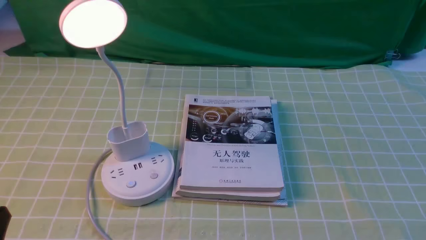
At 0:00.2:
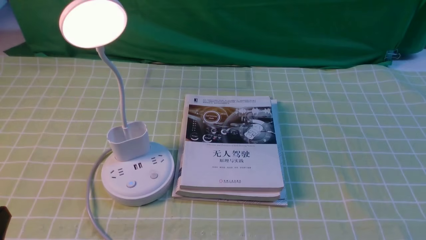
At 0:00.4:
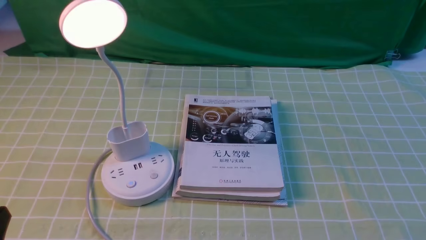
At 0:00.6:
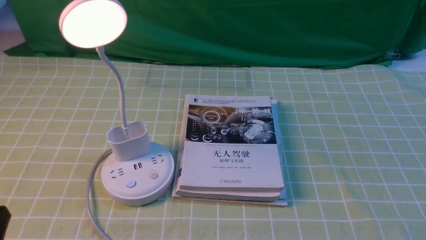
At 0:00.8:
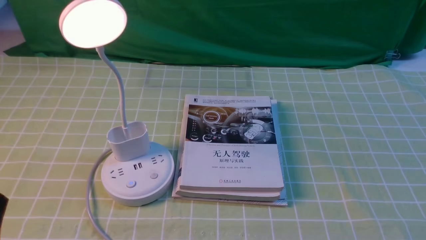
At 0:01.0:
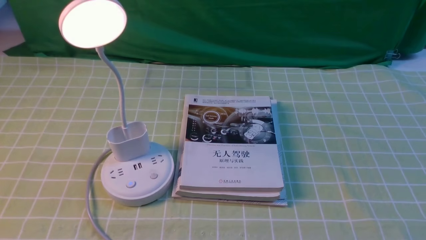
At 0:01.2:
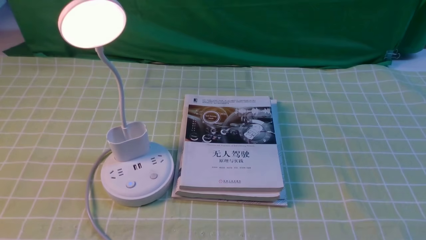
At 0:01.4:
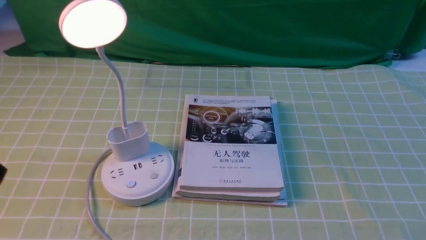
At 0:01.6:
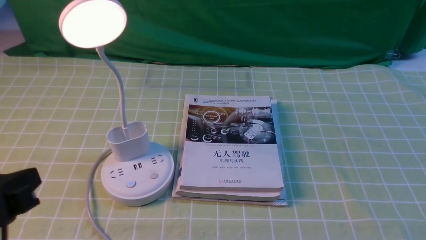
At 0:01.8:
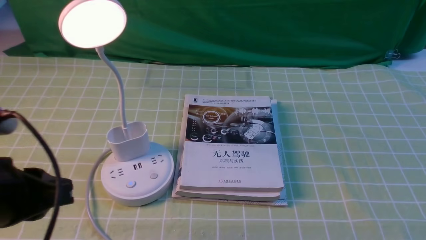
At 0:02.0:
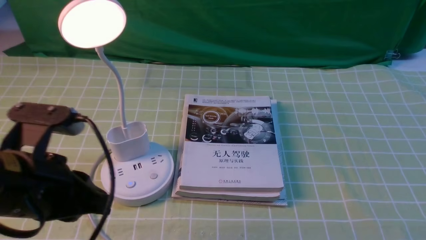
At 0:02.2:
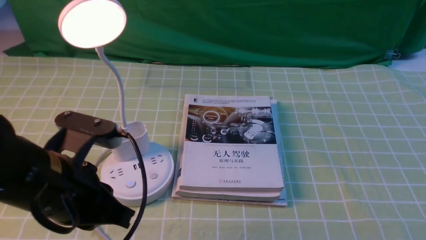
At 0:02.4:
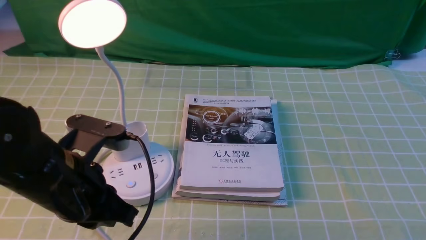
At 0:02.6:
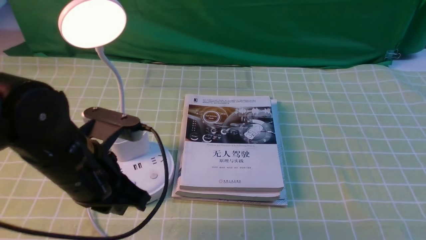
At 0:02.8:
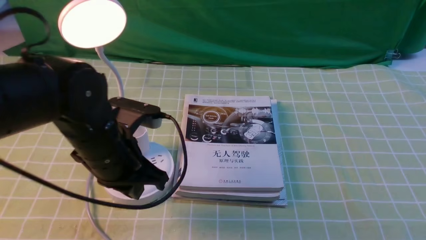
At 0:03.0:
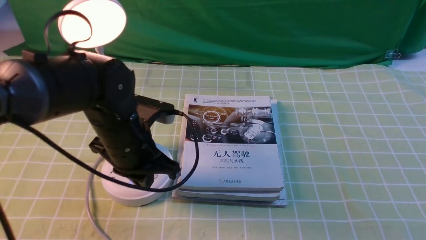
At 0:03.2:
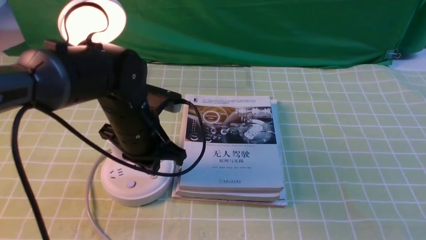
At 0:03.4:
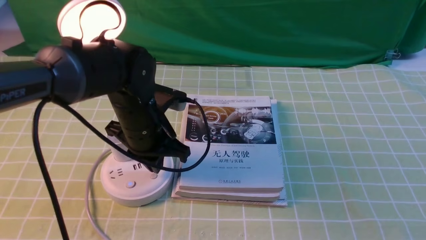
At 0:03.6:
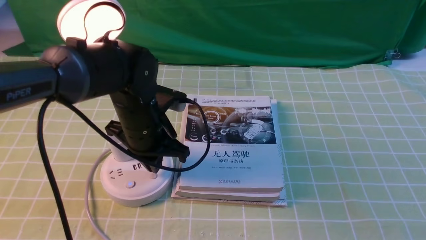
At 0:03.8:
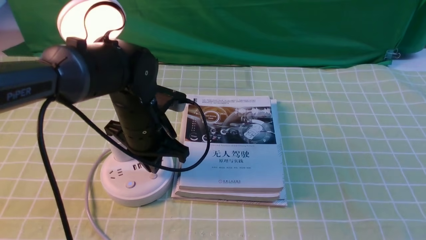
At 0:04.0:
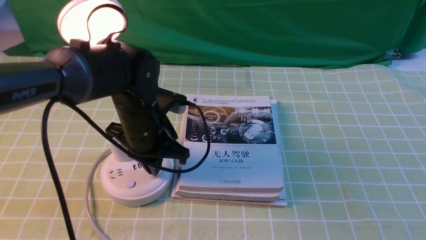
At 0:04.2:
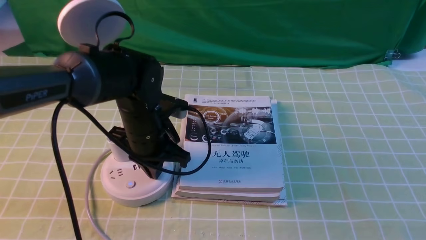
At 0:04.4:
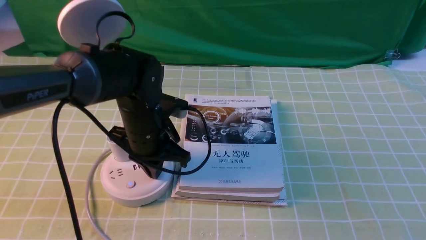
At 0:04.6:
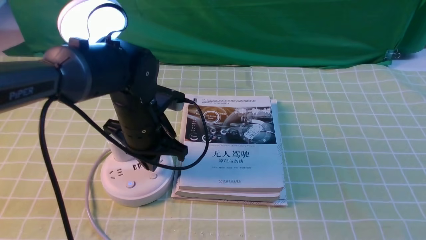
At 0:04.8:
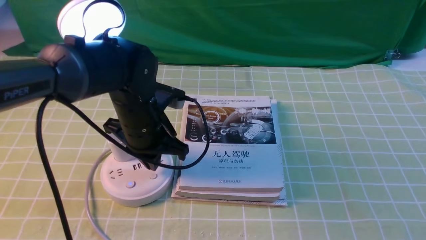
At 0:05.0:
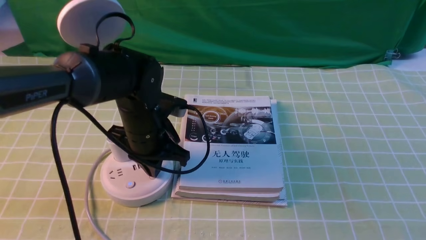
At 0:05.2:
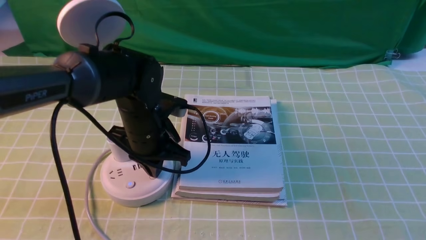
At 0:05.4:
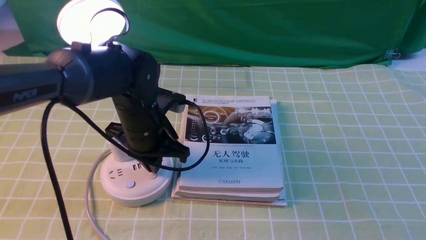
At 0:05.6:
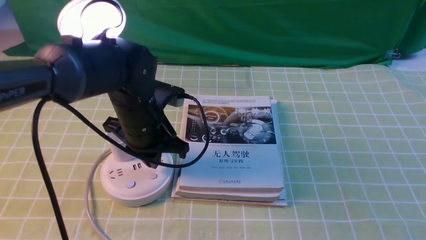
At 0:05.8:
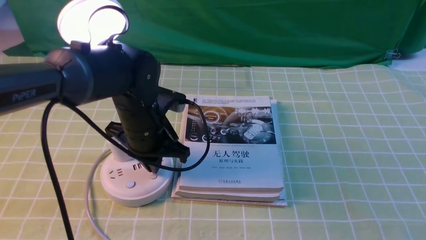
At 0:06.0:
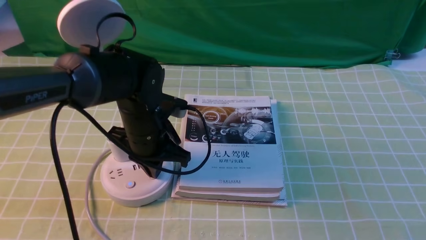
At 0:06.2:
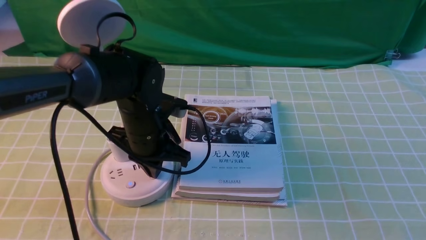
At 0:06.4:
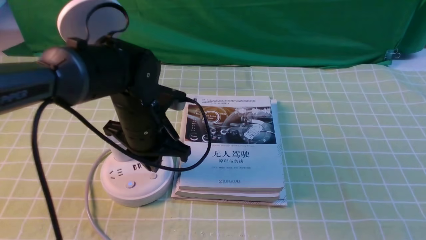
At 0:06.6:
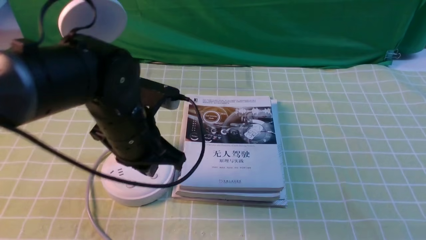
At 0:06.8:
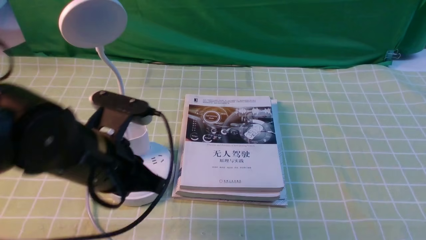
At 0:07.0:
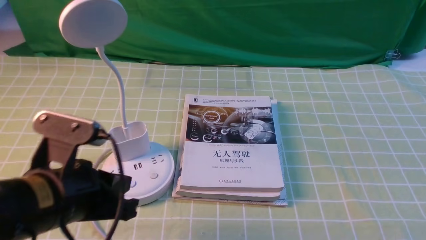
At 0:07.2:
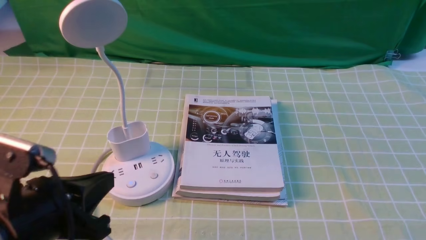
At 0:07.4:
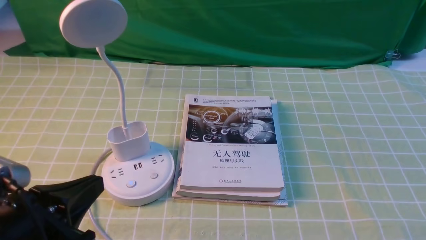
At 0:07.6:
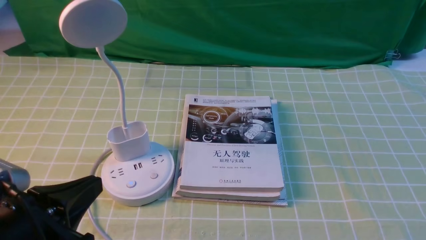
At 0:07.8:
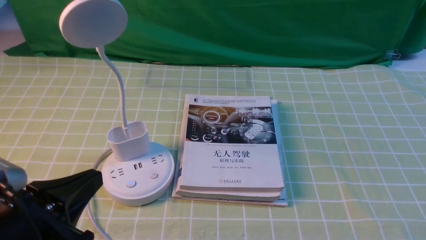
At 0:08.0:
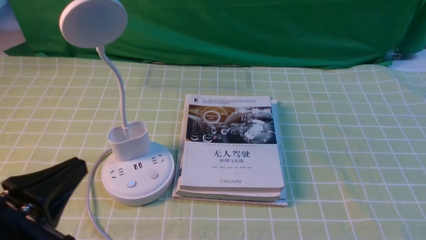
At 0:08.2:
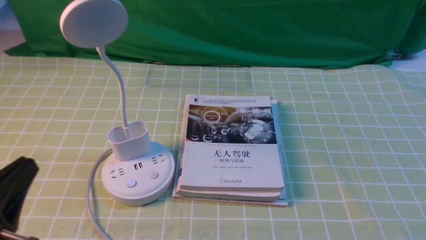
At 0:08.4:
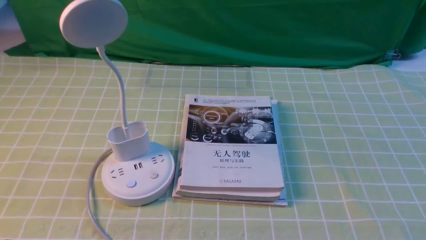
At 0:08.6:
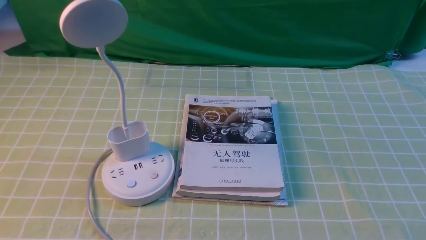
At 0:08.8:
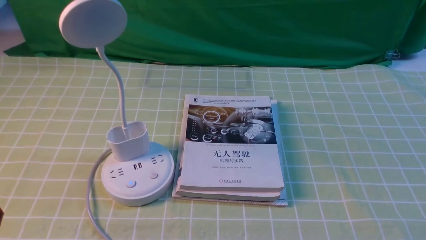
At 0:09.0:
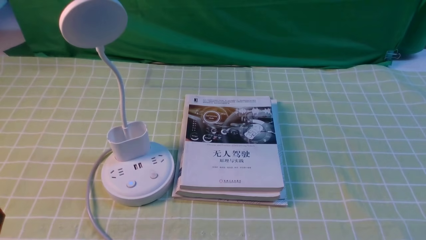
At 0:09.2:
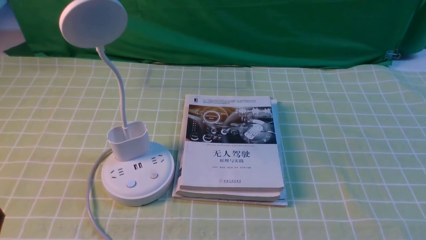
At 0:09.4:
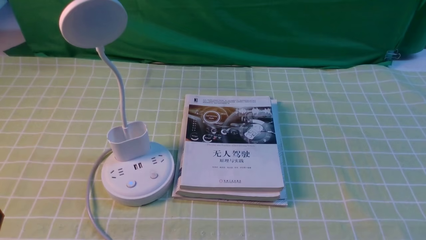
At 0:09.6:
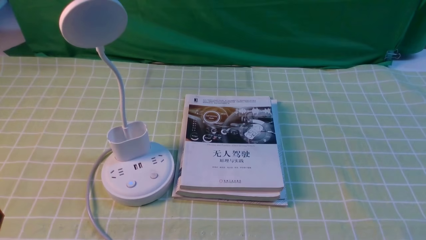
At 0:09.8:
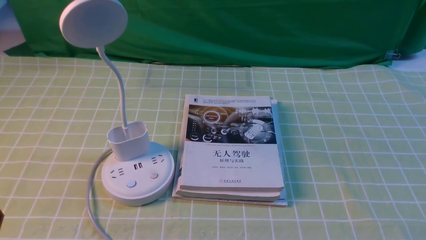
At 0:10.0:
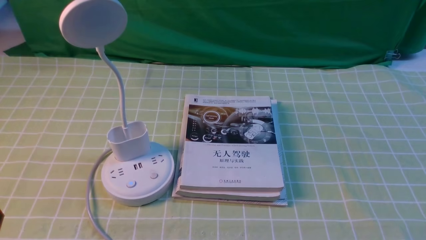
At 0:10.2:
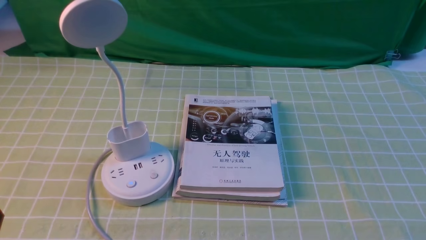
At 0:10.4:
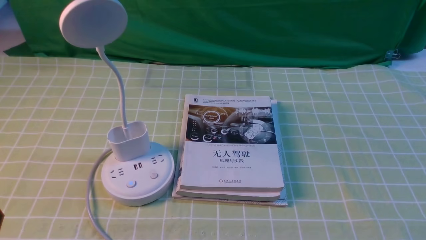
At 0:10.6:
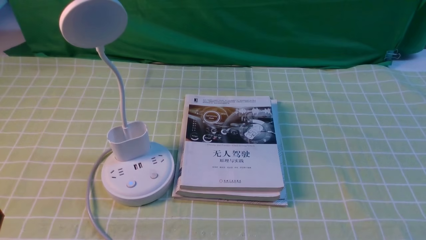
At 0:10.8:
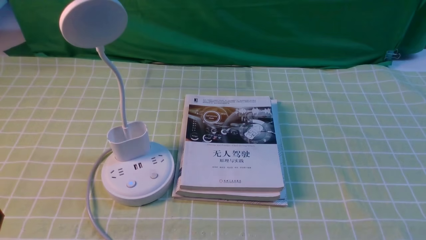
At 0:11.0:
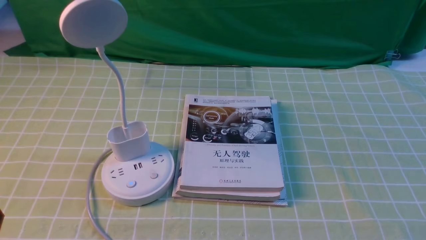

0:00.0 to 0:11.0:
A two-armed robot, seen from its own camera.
Task of the whole recording: turn off the desk lamp on the green coffee tablecloth by hand.
Step, 0:00.0 to 0:06.4: use the left arm to press the button switch on the lamp holder.
0:00.0 to 0:01.6: The left gripper moves upward and forward, some 10 cm.
0:01.6 to 0:03.2: The left gripper heads forward and to the right, covering some 25 cm.
0:03.2 to 0:04.8: There are only small adjustments of the grippers.
0:04.8 to 0:06.2: Both grippers stay put.
0:06.2 to 0:07.8: The left gripper heads backward and to the left, covering approximately 25 cm.
0:07.8 to 0:09.4: The left gripper travels downward and to the left by approximately 10 cm.

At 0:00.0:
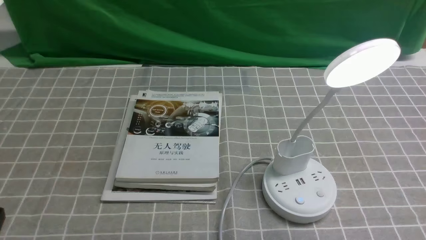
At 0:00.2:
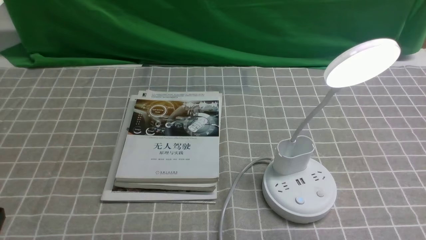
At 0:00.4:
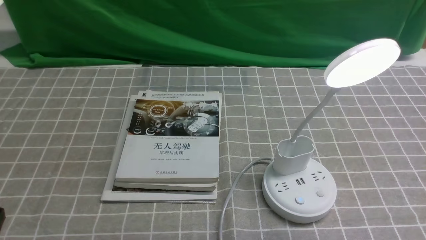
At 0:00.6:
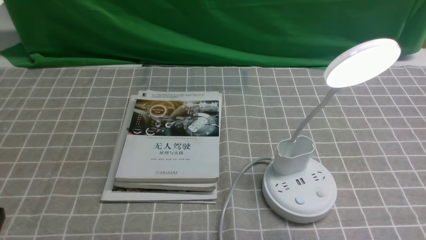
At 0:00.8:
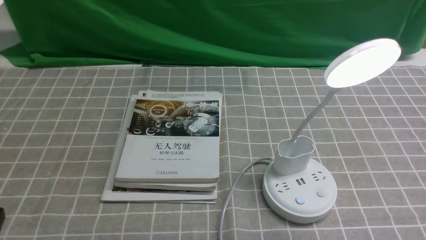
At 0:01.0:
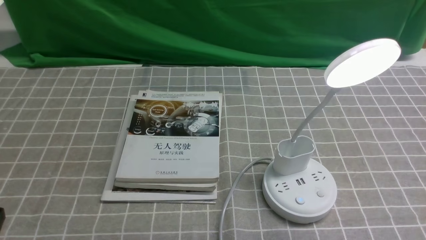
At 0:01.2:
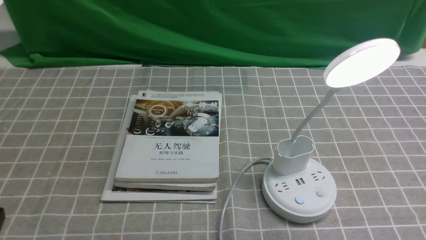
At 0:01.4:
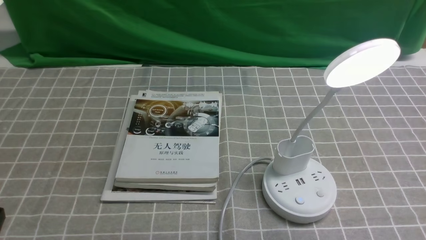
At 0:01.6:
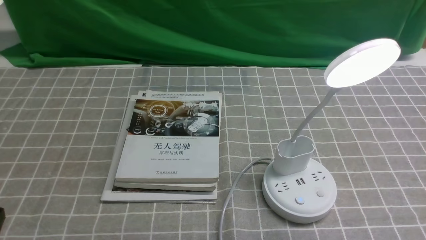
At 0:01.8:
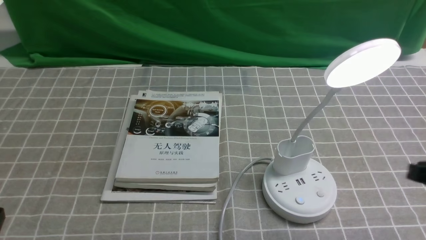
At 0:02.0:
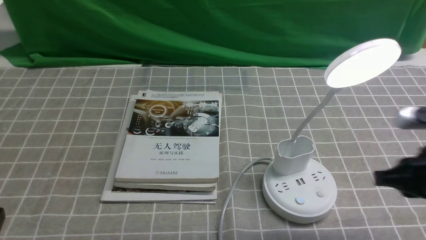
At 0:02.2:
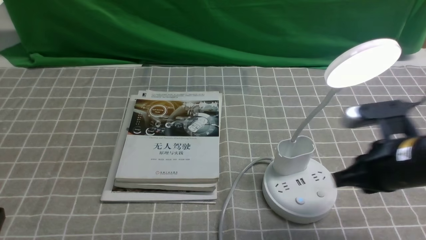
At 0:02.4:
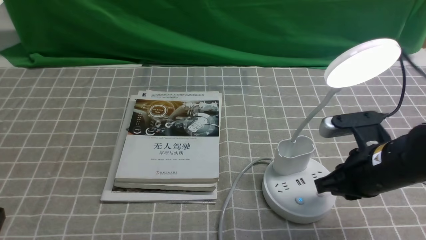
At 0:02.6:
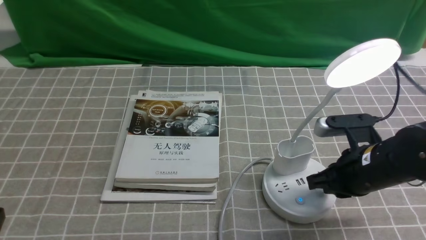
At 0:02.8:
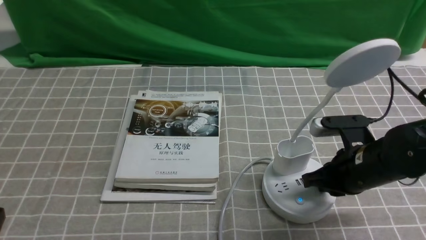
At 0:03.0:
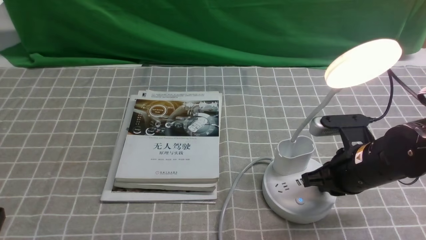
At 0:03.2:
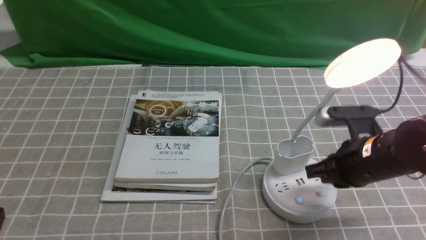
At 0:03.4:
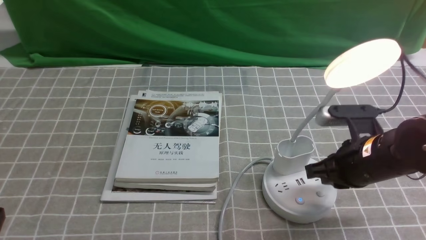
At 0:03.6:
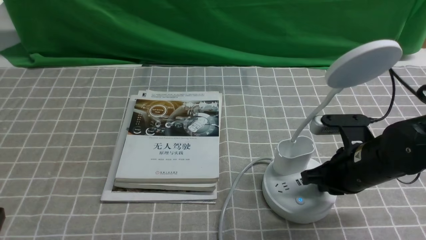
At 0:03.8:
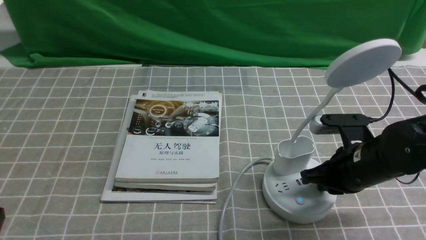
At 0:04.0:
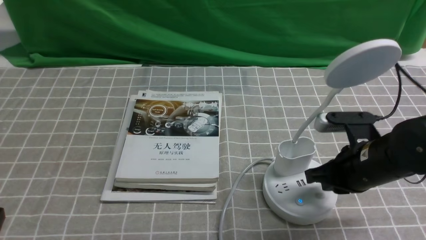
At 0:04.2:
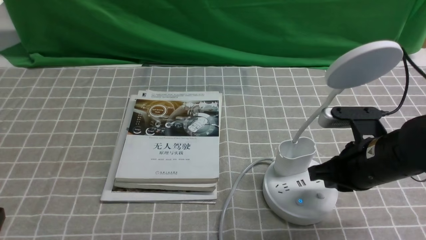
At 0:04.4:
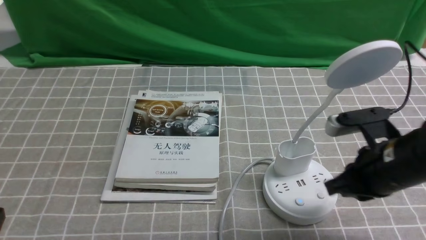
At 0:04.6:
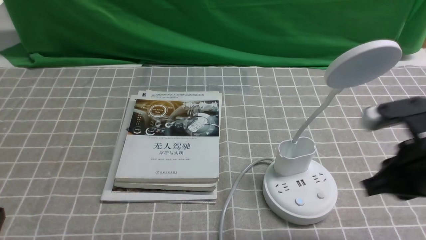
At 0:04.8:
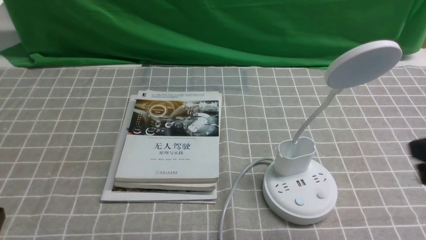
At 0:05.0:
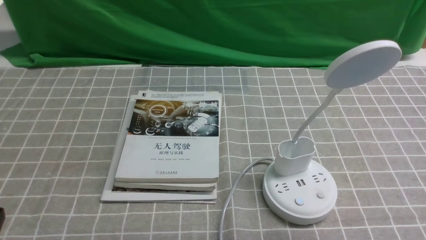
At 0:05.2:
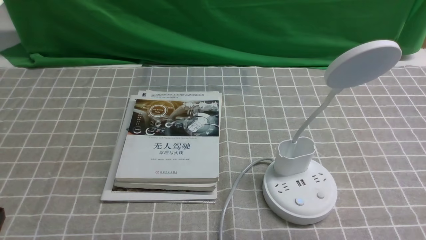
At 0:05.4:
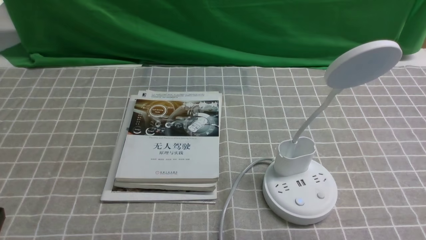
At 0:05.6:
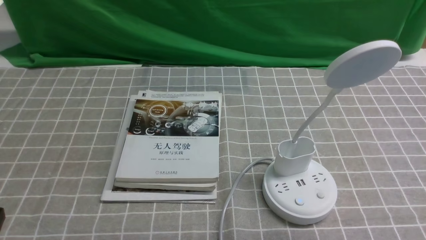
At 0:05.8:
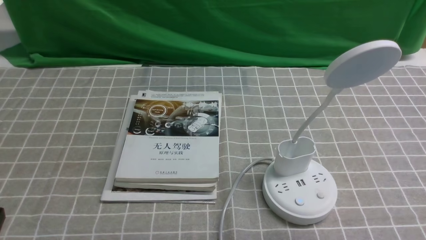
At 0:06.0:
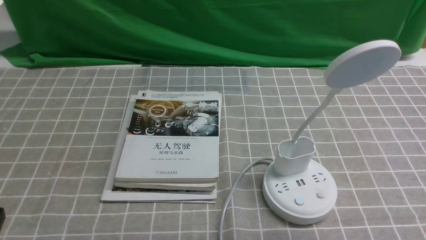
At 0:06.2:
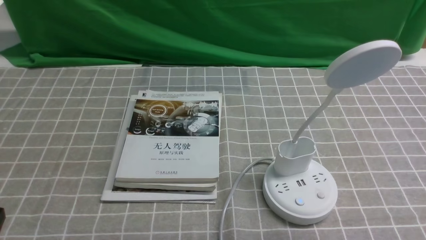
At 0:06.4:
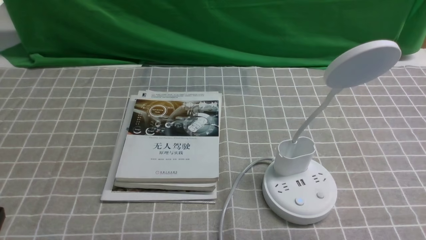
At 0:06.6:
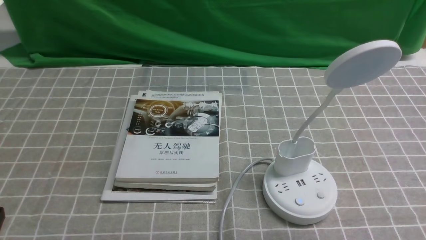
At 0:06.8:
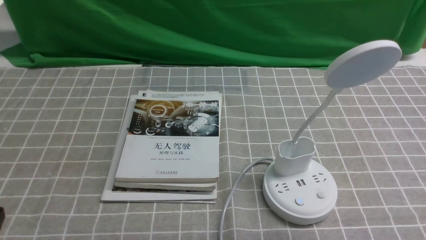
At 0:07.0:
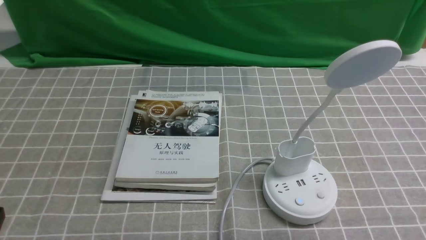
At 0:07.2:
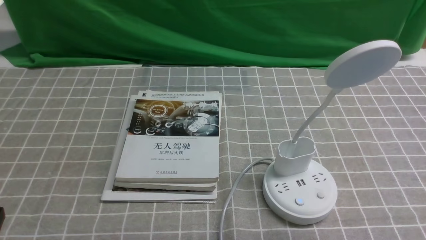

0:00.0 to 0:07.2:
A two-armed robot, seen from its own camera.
Task of the whole recording: turn off the desk lamp on the grey coffee tablecloth by hand.
Step, 0:00.0 to 0:04.2: use the right arm to press the button switch on the lamp holder.
0:01.4 to 0:02.8: The right gripper moves forward, downward and to the left, some 20 cm.
0:02.8 to 0:04.4: The right gripper shifts approximately 5 cm upward.
0:04.4 to 0:05.8: The right gripper is displaced backward and to the right by roughly 20 cm, and closes its fingers.
